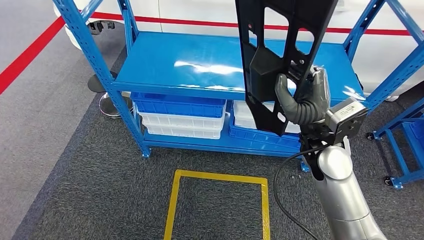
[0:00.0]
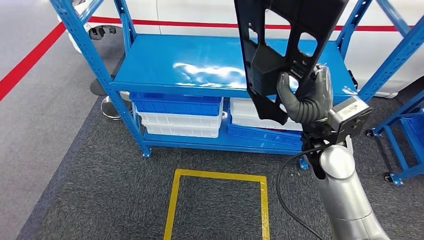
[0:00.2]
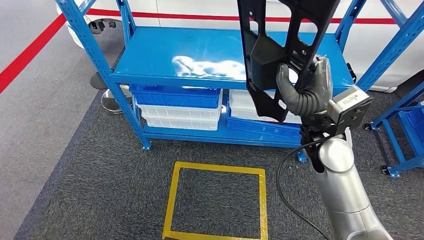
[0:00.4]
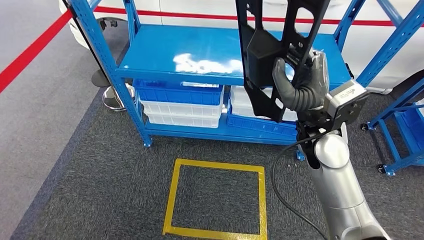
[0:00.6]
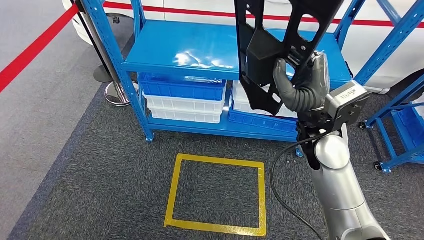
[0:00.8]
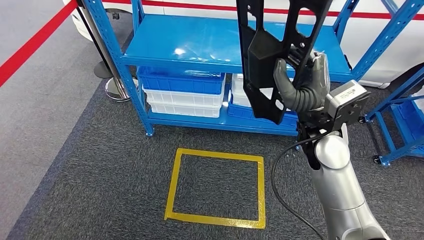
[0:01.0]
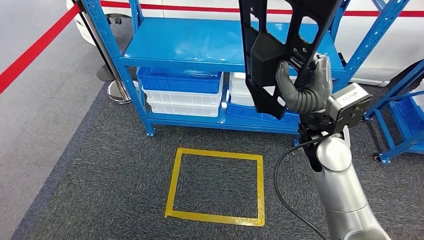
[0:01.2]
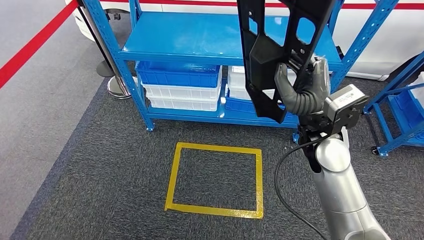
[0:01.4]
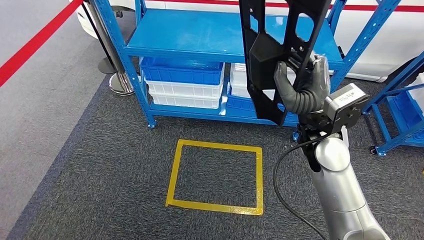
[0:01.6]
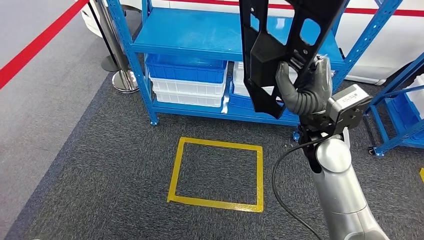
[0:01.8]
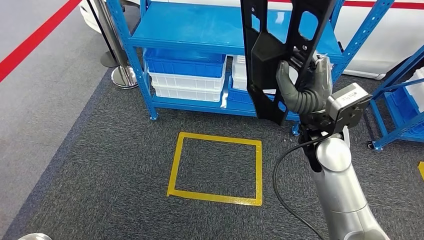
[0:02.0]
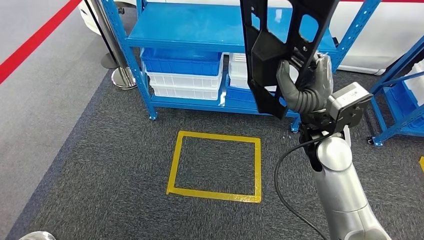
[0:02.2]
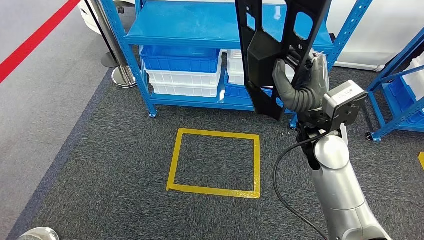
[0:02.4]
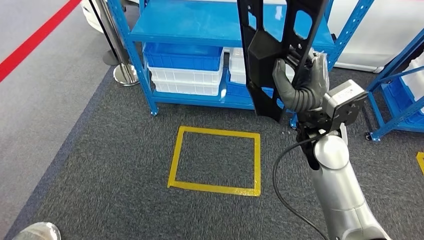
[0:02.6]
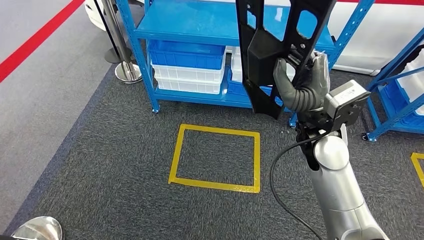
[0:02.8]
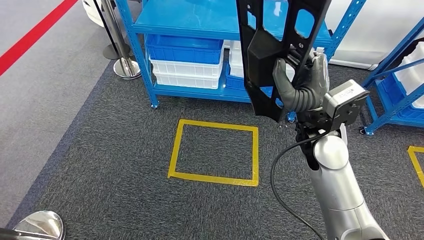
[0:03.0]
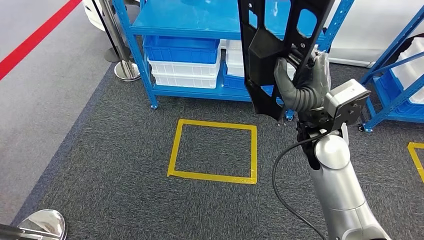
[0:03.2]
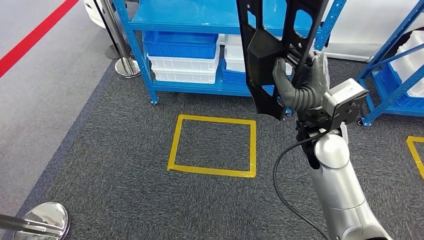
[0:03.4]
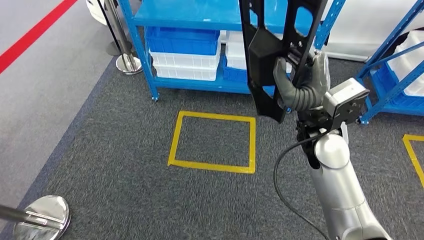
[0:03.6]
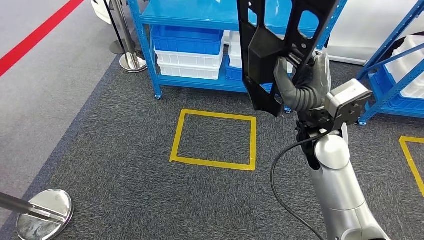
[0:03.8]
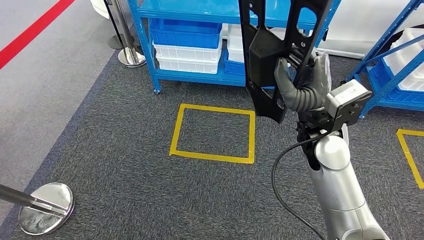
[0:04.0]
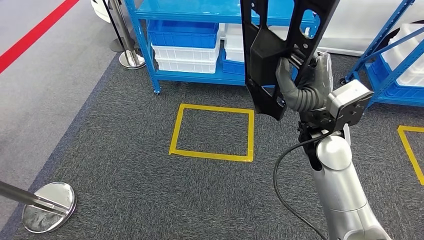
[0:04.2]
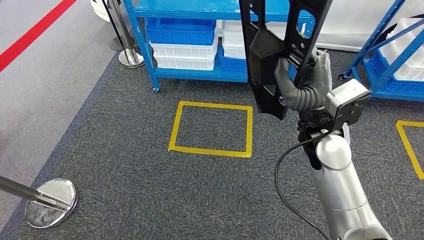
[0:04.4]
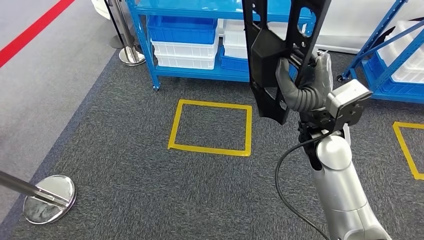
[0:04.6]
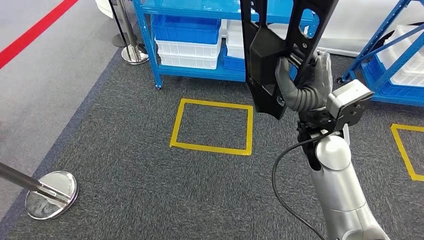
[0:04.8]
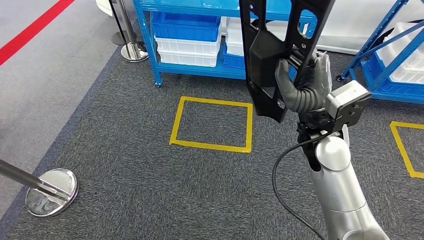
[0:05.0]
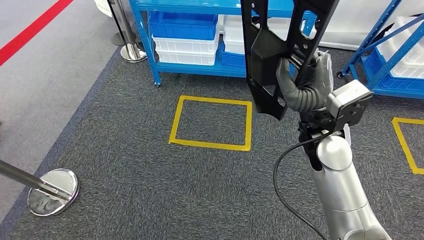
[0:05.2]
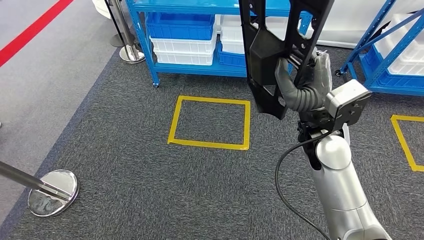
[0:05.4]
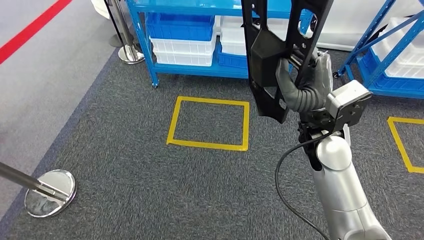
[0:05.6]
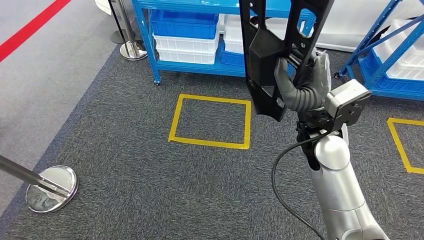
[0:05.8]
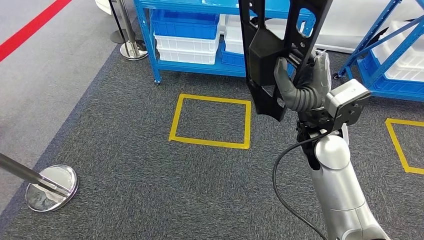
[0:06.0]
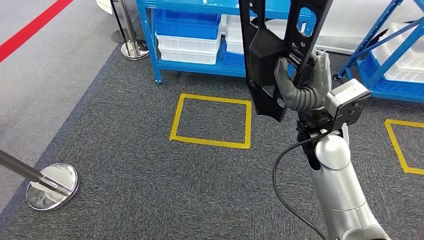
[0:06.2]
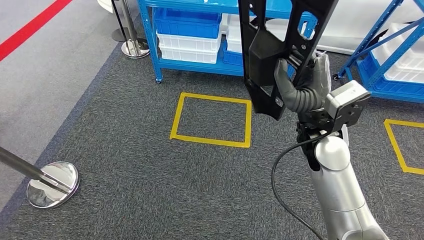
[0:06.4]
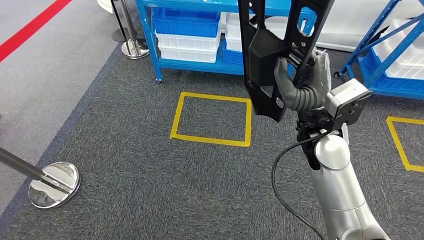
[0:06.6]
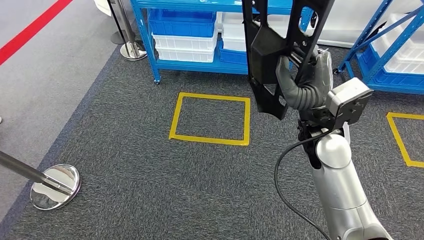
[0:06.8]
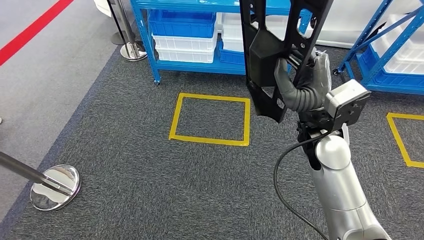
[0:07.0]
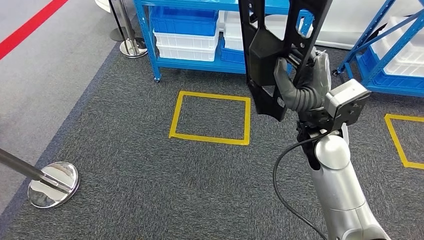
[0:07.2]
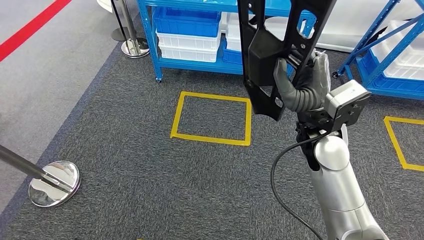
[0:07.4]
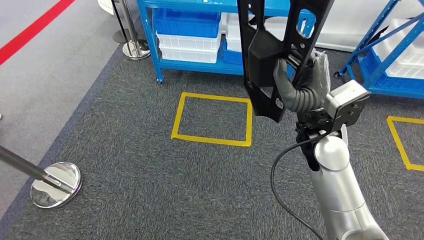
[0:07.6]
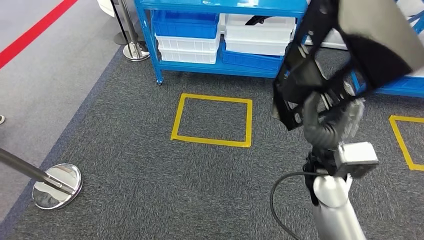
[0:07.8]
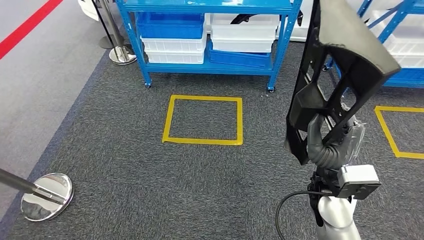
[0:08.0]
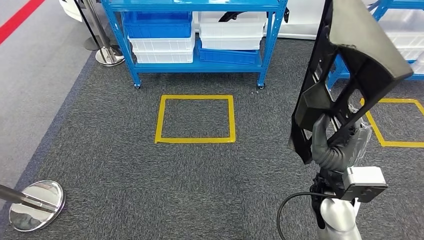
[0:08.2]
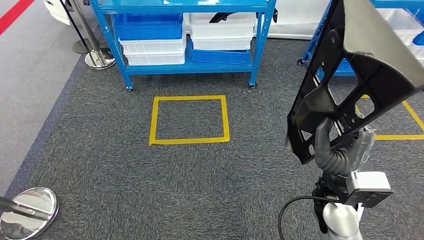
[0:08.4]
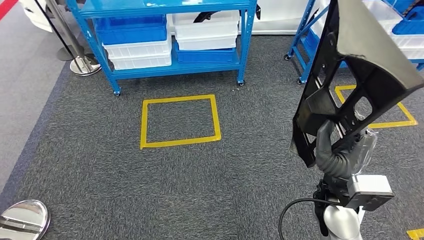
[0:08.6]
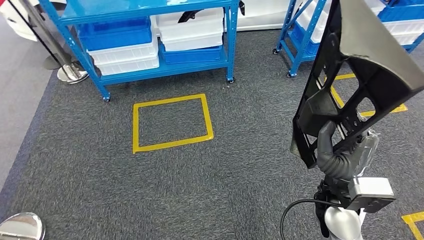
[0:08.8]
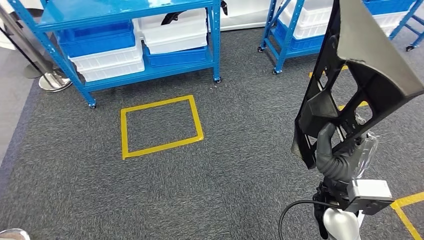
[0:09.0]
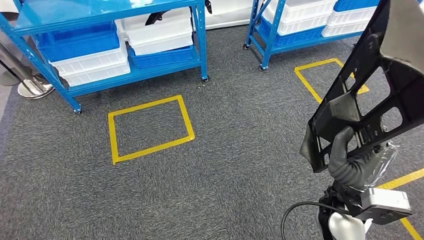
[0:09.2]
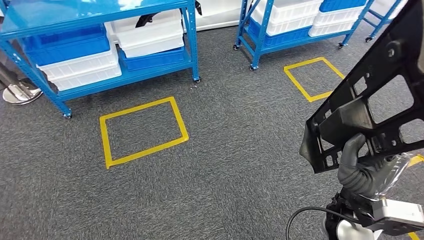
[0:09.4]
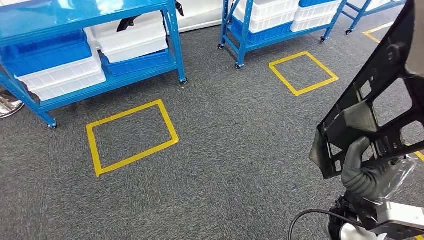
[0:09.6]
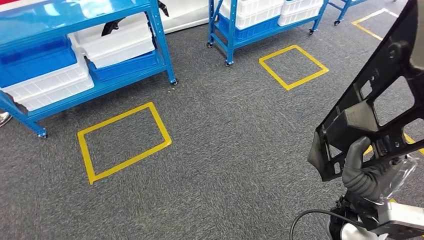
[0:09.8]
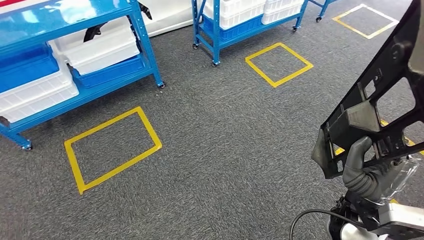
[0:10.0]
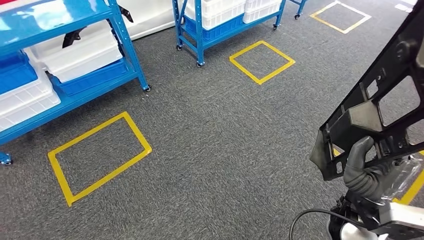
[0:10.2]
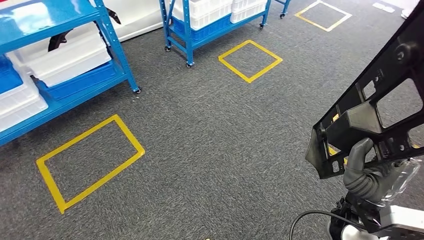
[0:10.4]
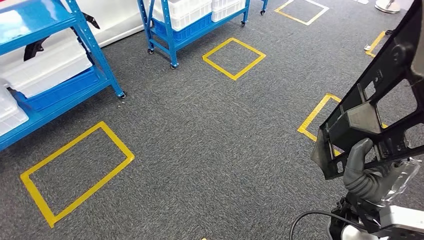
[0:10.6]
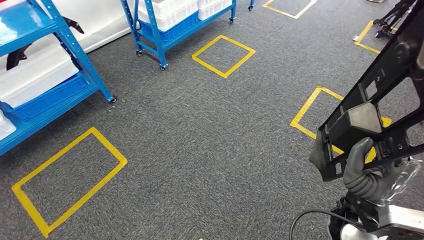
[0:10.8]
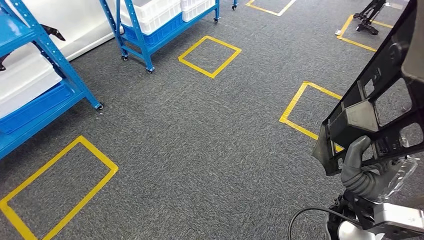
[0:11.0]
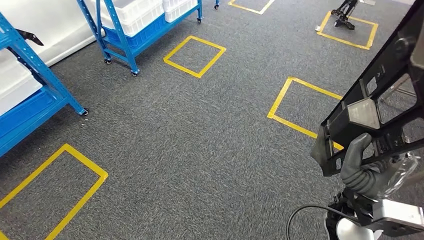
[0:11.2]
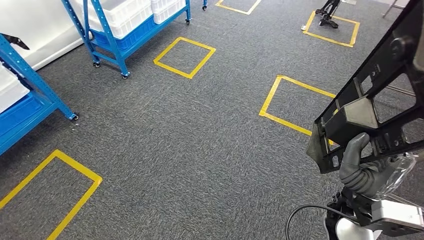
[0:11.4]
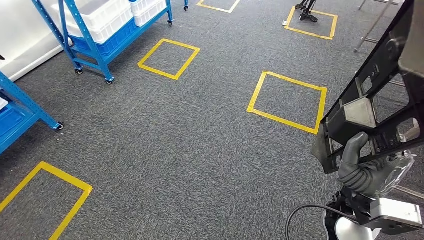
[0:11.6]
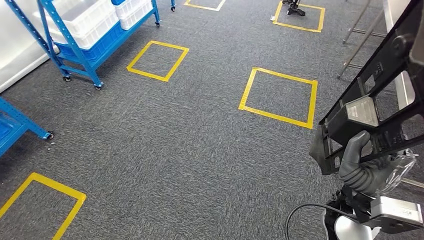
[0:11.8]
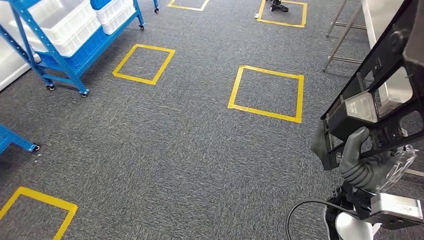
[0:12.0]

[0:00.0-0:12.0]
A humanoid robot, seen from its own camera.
0:06.0 to 0:07.6: Both hands stay put.

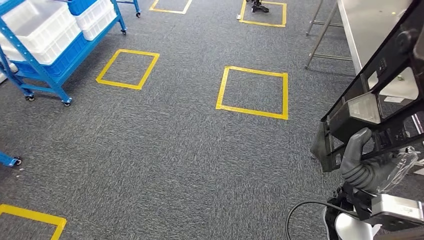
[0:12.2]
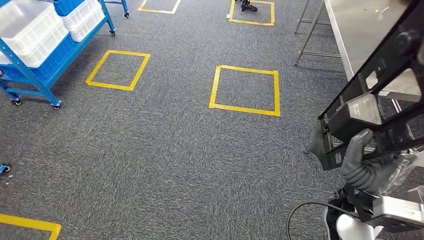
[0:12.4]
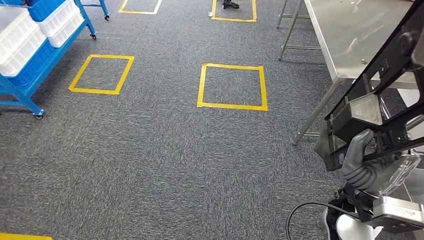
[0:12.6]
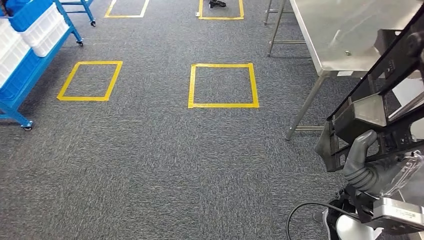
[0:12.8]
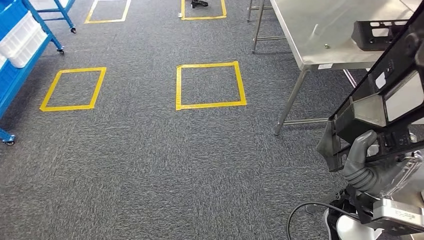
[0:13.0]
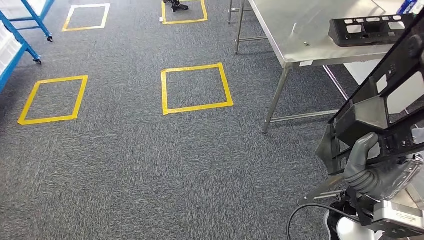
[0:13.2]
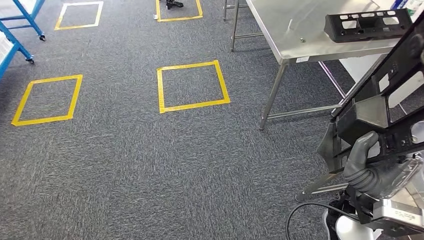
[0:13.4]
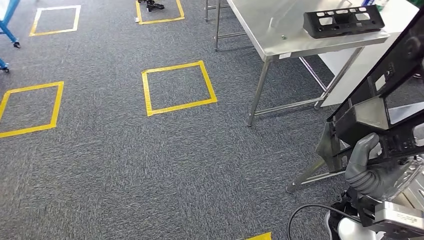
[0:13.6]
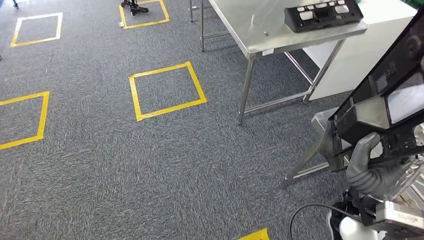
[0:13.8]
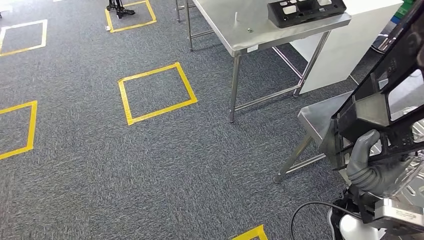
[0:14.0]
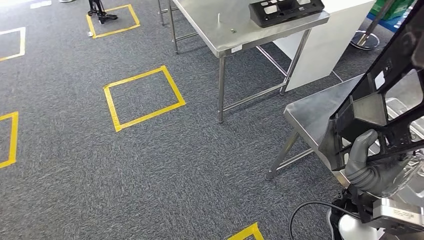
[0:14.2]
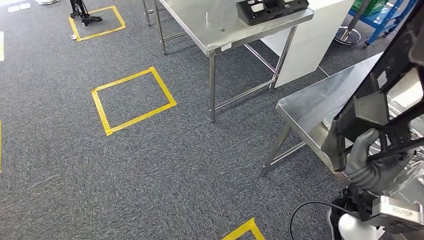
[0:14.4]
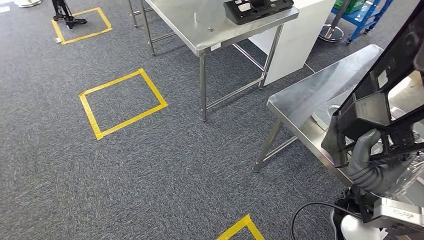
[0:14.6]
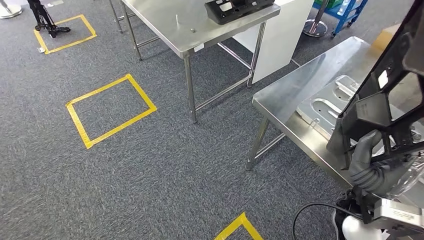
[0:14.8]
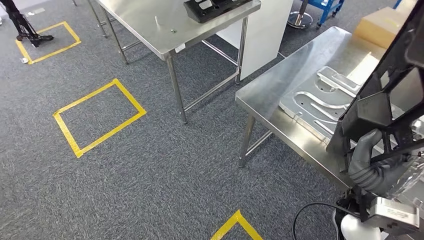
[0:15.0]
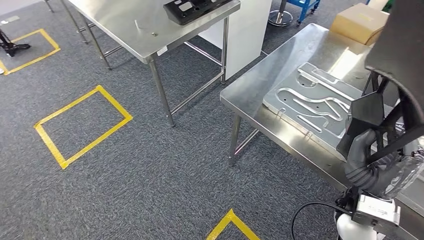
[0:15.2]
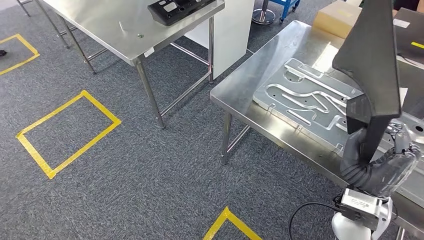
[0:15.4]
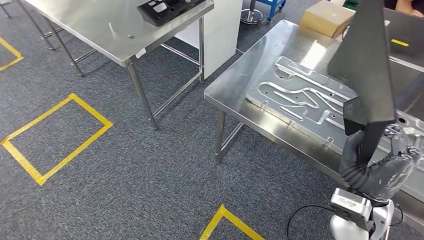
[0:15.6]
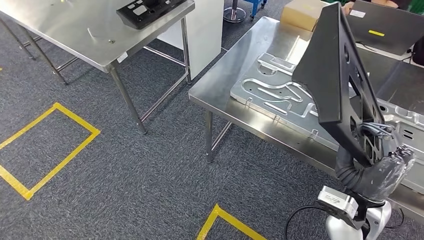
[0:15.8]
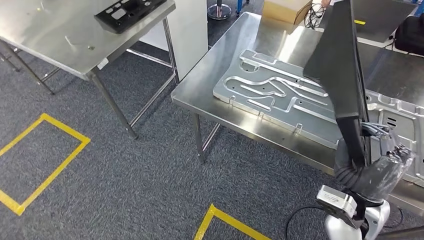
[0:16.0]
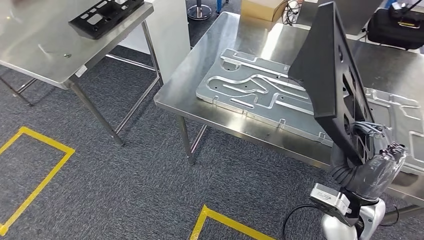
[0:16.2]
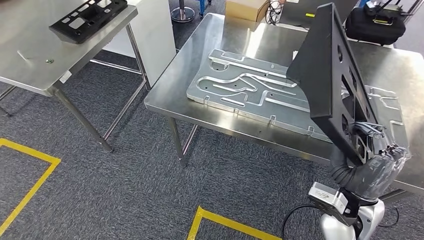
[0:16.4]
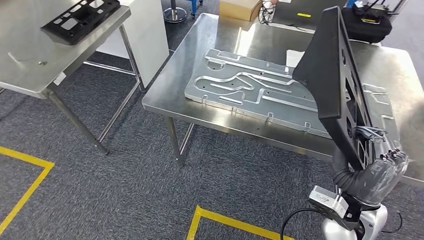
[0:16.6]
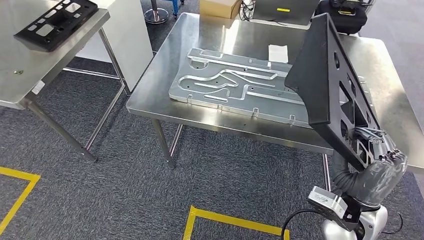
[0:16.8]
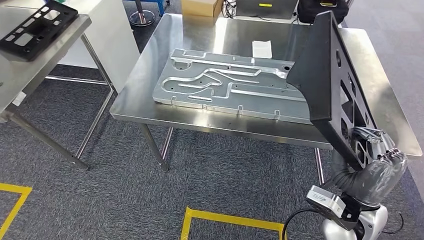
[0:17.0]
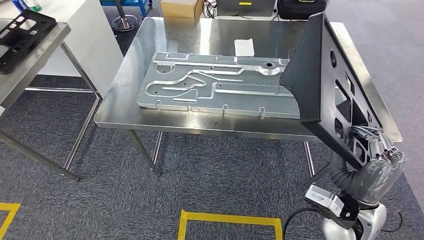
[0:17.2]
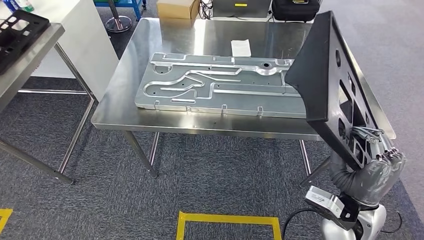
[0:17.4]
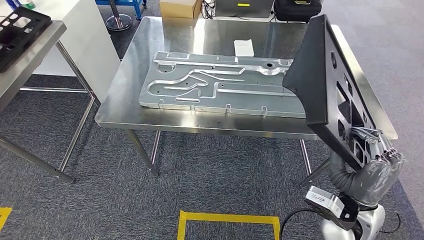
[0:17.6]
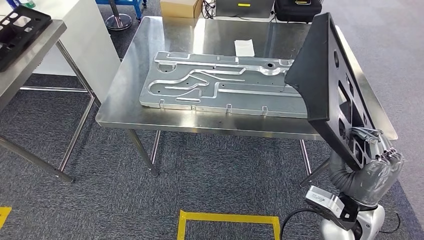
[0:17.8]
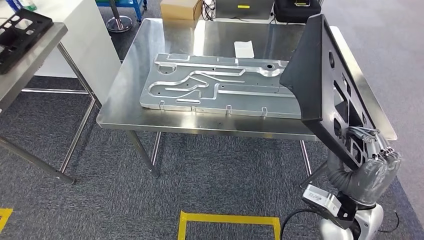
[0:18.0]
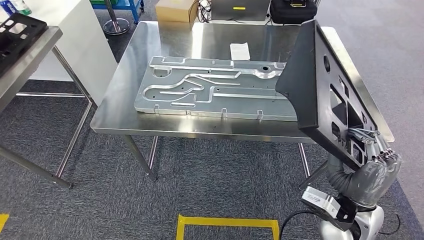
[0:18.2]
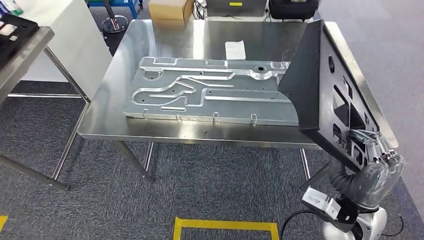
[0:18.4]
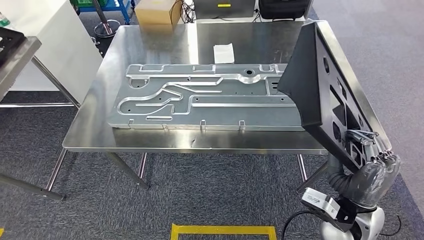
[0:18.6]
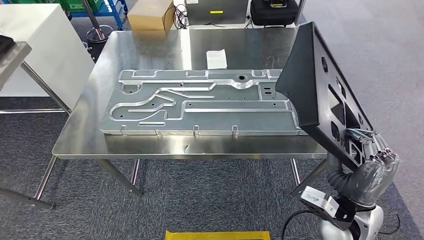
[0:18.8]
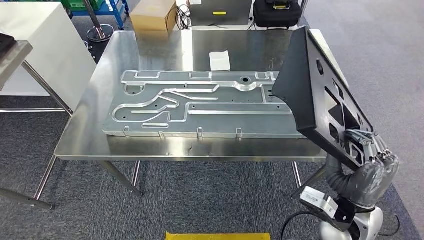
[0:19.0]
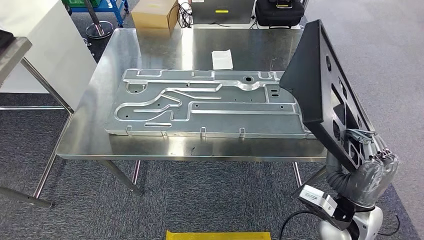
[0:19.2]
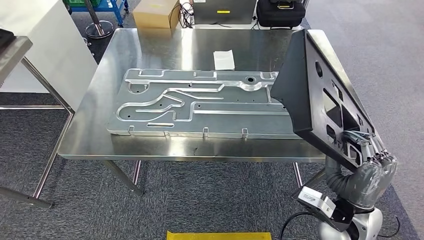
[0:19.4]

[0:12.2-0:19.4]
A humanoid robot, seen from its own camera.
Step, 0:12.2 to 0:17.4: Move the large material to the workbench.
